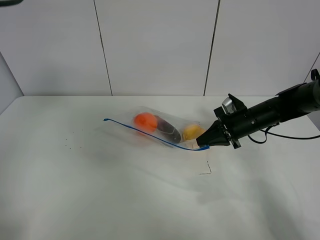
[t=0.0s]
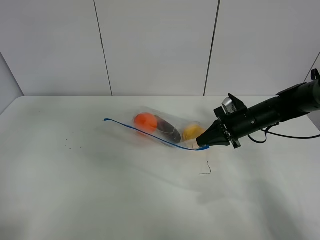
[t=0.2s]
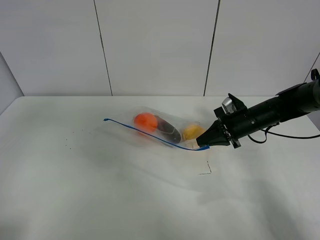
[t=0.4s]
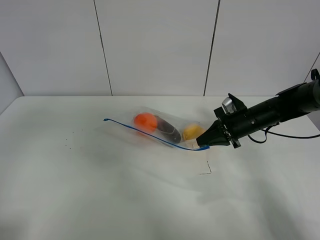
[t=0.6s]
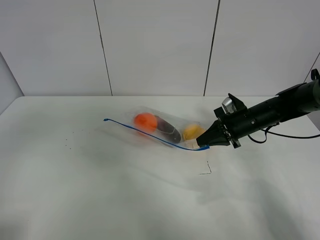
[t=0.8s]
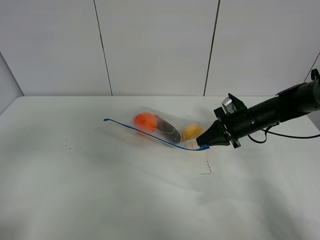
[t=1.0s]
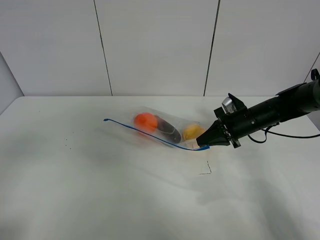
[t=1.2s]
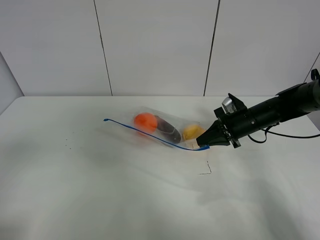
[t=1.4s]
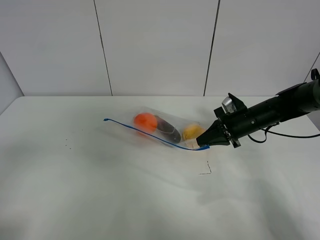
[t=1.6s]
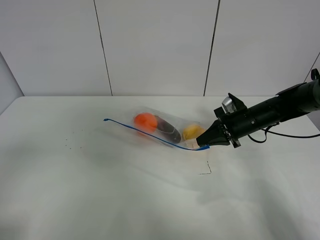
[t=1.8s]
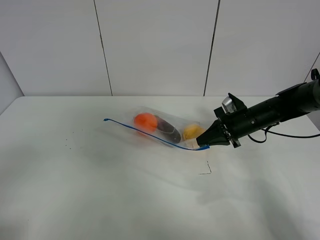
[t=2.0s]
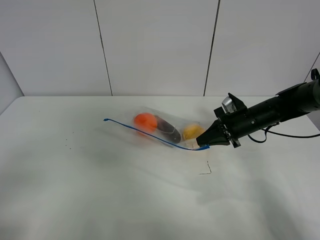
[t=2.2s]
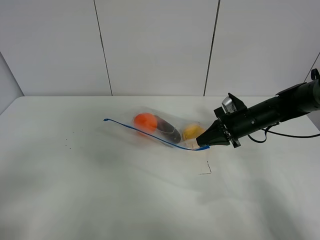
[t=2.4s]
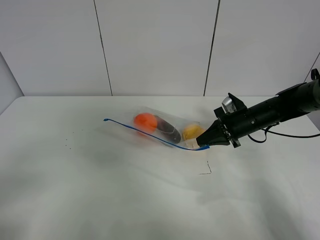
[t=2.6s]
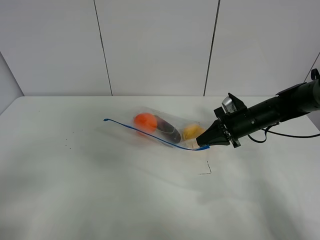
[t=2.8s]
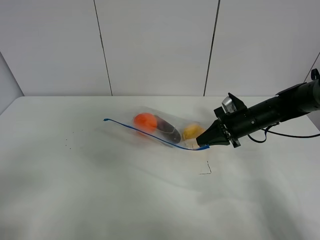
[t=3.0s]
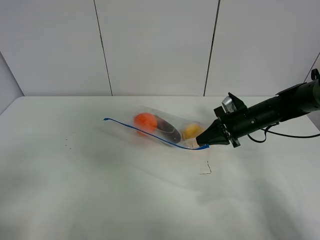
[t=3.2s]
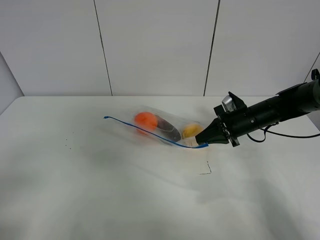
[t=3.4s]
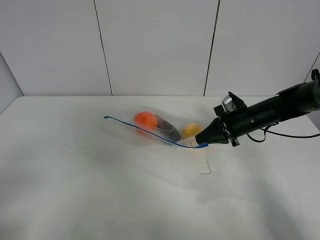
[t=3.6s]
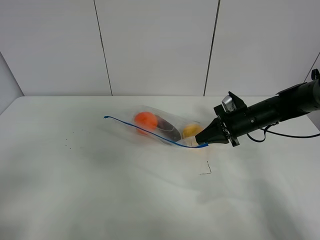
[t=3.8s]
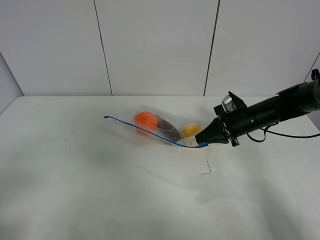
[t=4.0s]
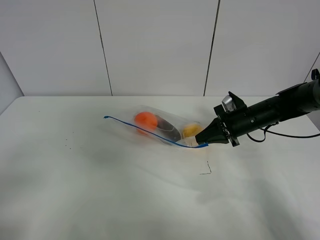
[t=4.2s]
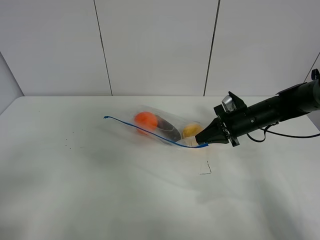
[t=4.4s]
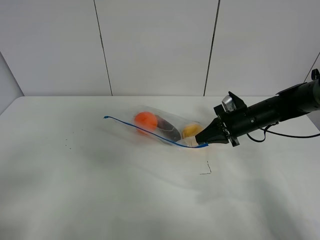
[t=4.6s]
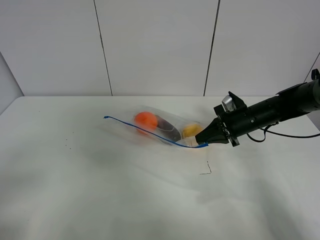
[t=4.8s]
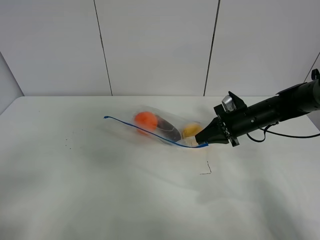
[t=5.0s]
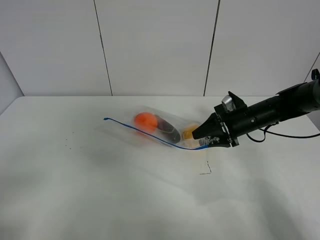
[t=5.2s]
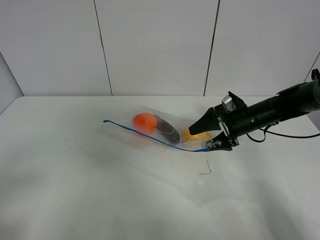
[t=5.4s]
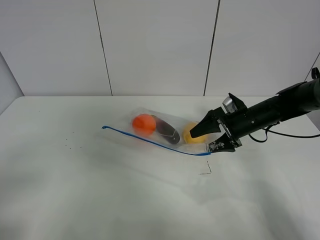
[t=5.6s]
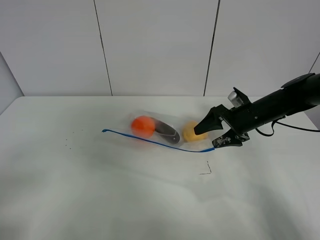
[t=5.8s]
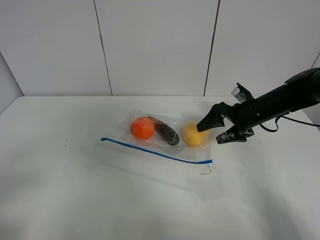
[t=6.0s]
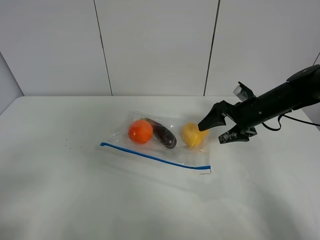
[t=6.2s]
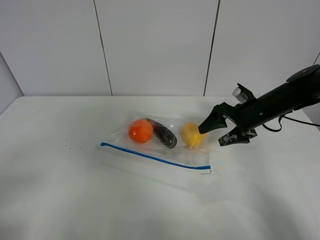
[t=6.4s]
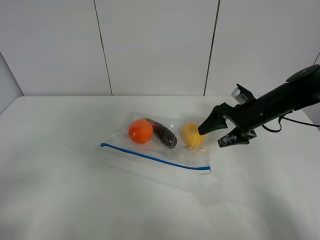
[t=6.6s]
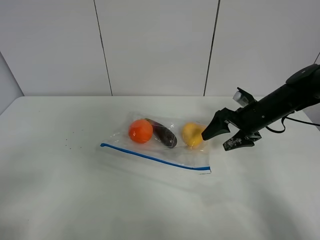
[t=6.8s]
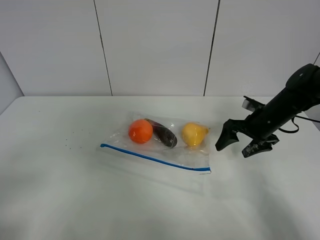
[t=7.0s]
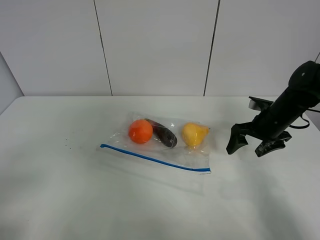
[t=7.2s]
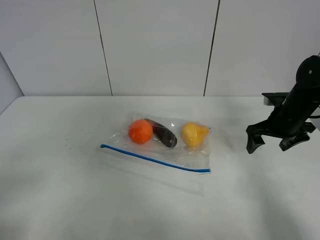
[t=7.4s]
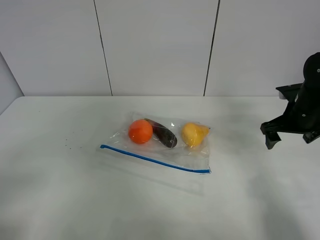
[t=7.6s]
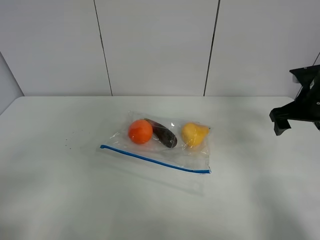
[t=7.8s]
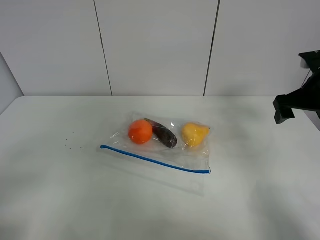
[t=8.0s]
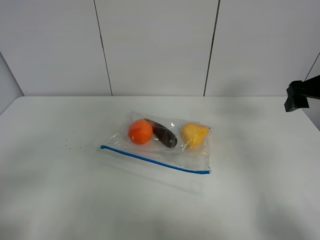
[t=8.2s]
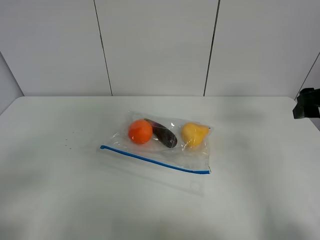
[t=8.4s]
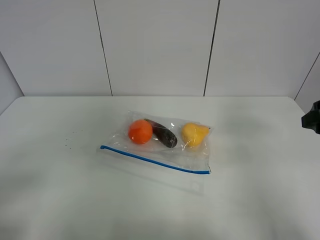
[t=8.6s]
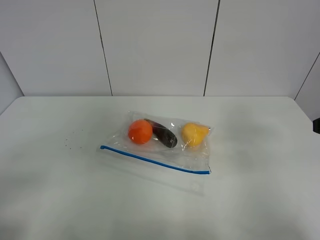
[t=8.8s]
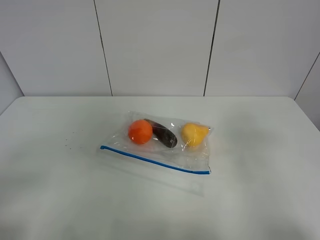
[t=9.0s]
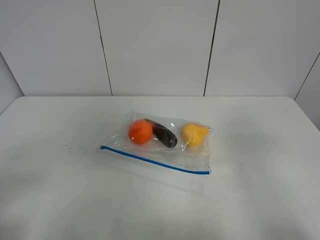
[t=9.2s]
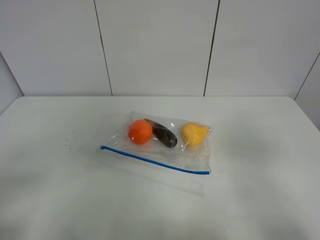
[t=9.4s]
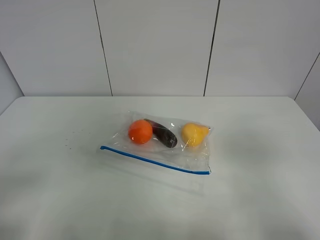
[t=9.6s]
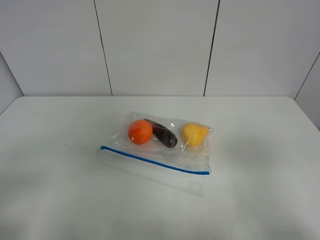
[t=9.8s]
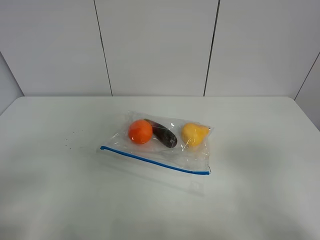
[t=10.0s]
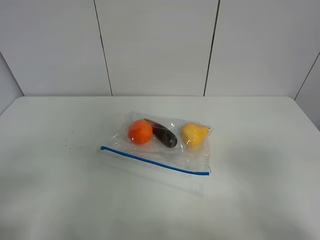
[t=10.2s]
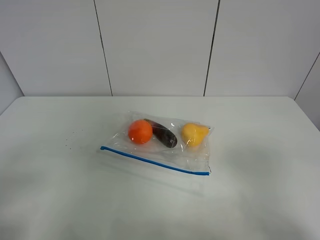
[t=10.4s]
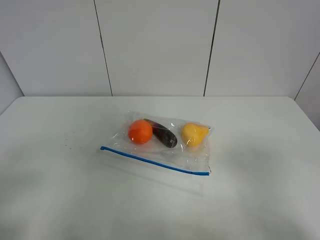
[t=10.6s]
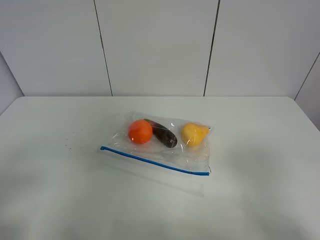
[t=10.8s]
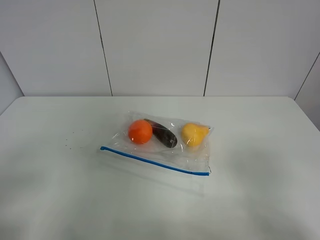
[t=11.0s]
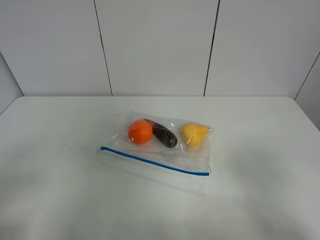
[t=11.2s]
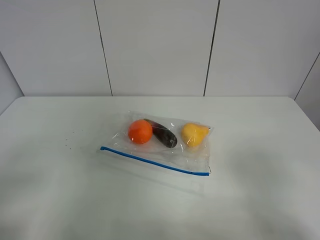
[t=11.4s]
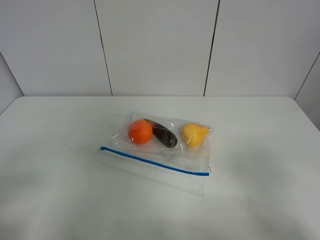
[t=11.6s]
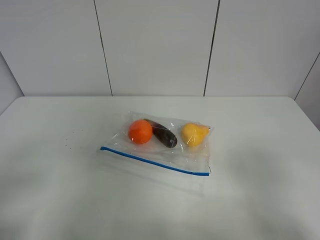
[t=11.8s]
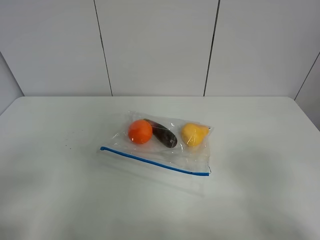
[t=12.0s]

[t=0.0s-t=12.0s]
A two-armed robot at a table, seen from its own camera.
t=0.0s to t=1.6s: The left gripper is displaced backward by roughly 25 cm.
t=3.0s to t=4.4s: The two grippers keep their place.
t=4.4s to t=6.0s: The right gripper opens its fingers.
t=6.0s to t=7.6s: The right gripper shifts approximately 10 cm to the right.
t=7.6s to t=9.0s: The right gripper is displaced backward and upward by roughly 25 cm.
t=9.0s to t=10.4s: The right gripper is displaced backward by roughly 10 cm.

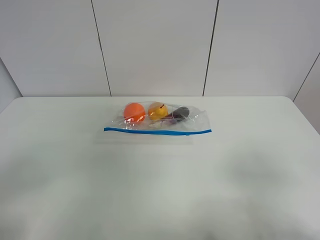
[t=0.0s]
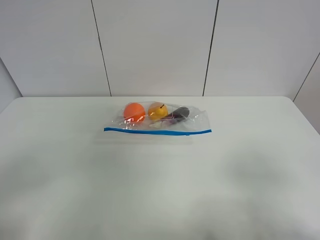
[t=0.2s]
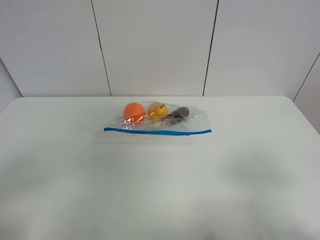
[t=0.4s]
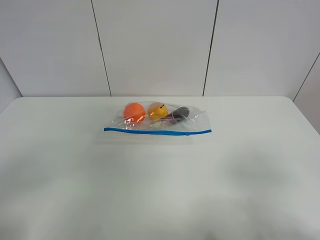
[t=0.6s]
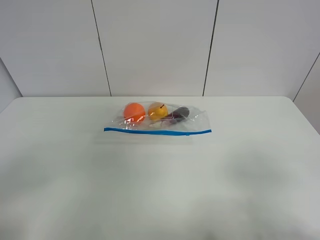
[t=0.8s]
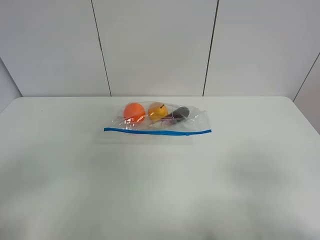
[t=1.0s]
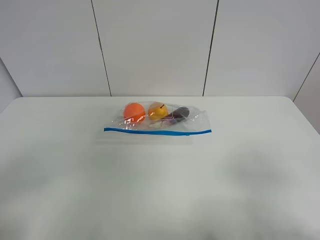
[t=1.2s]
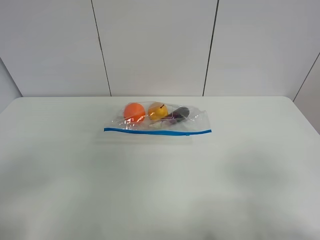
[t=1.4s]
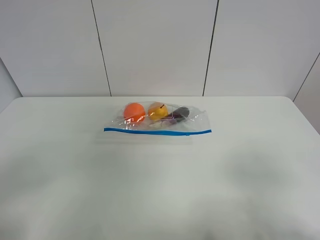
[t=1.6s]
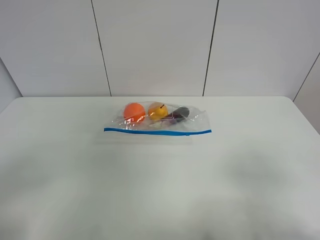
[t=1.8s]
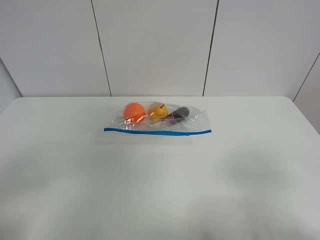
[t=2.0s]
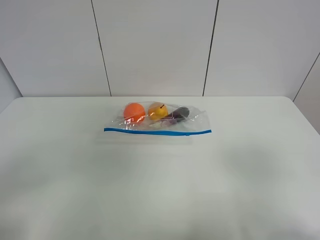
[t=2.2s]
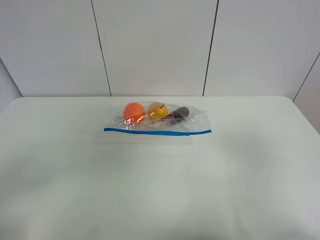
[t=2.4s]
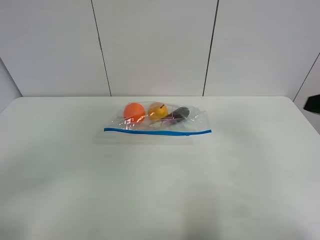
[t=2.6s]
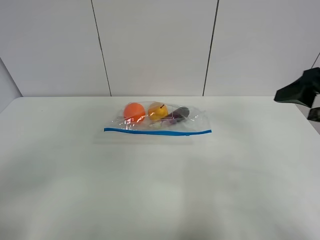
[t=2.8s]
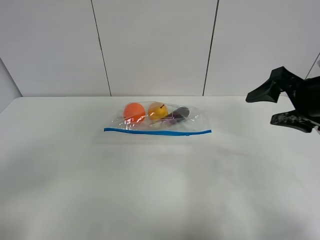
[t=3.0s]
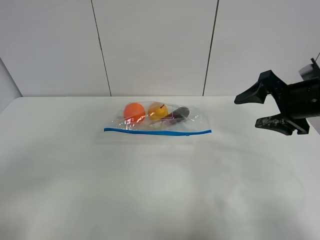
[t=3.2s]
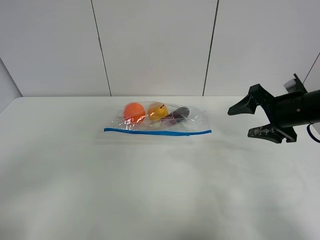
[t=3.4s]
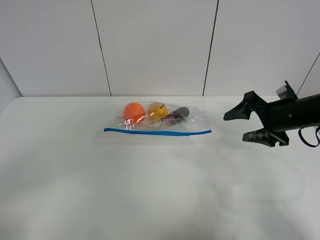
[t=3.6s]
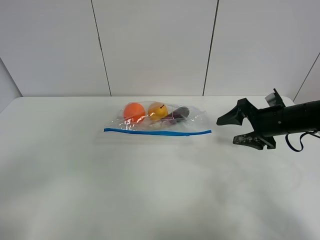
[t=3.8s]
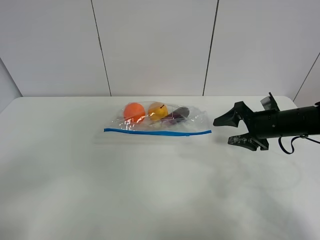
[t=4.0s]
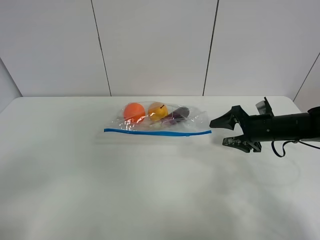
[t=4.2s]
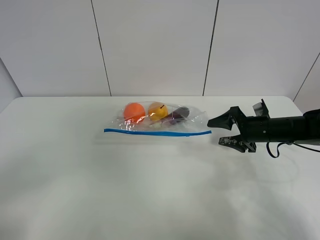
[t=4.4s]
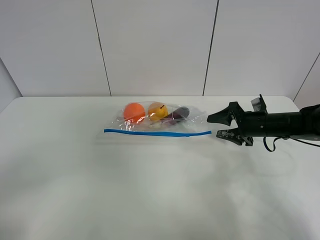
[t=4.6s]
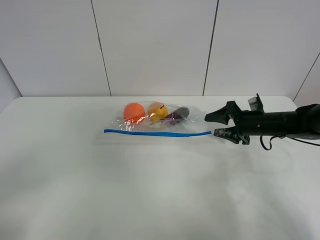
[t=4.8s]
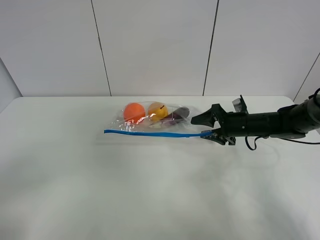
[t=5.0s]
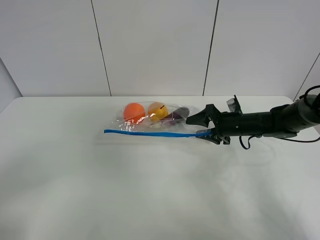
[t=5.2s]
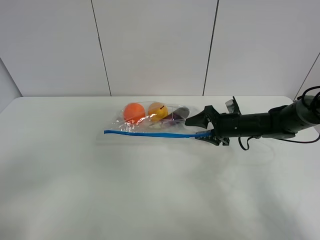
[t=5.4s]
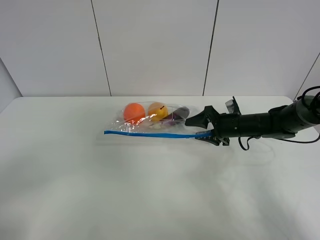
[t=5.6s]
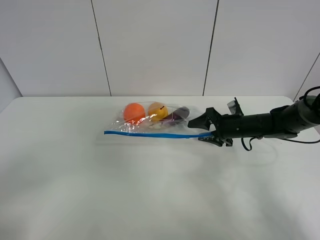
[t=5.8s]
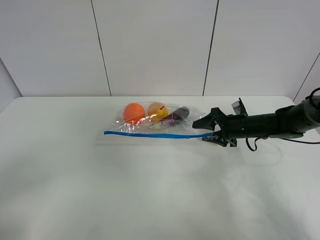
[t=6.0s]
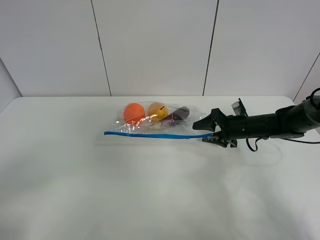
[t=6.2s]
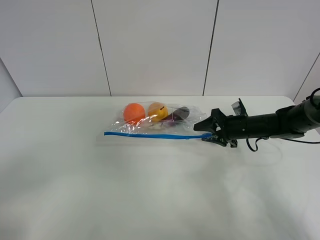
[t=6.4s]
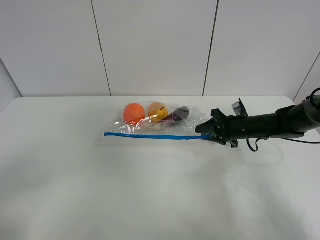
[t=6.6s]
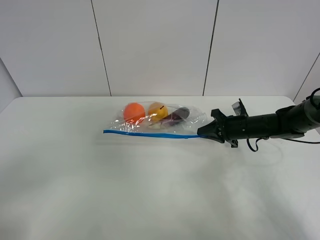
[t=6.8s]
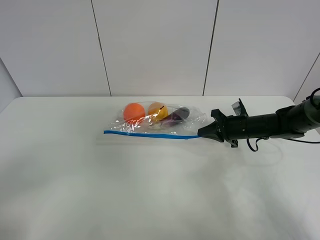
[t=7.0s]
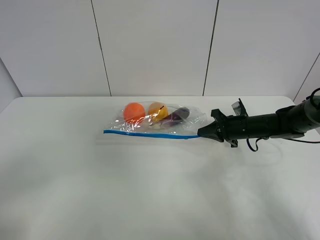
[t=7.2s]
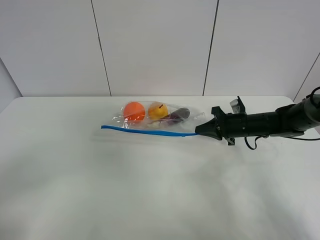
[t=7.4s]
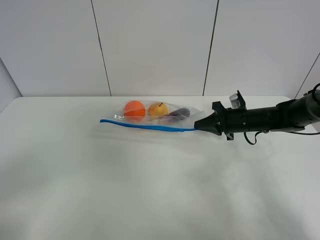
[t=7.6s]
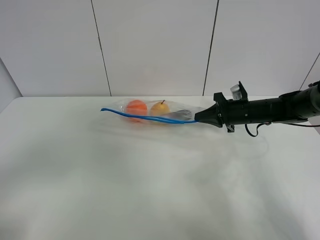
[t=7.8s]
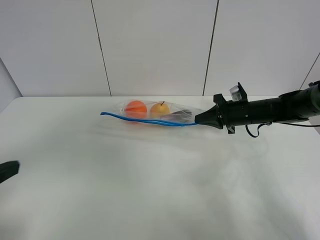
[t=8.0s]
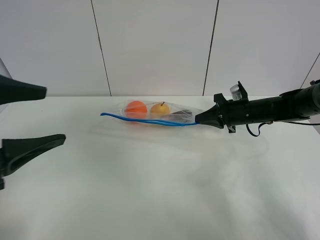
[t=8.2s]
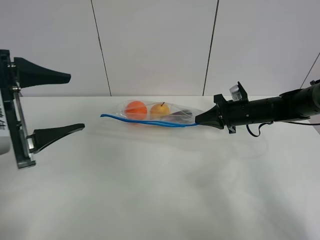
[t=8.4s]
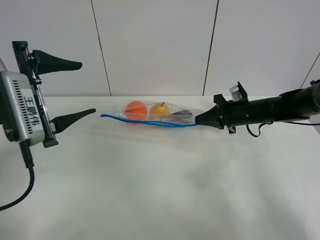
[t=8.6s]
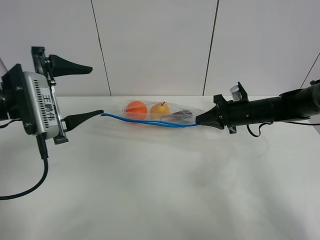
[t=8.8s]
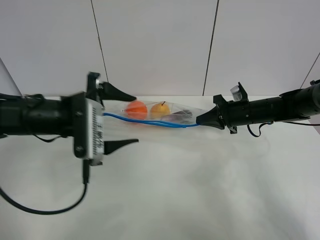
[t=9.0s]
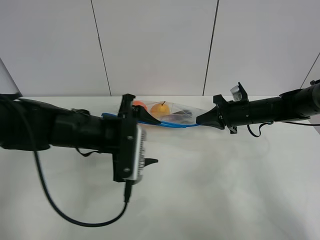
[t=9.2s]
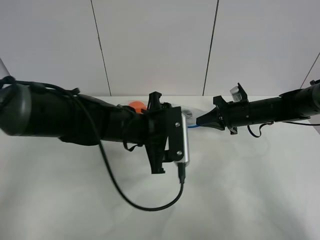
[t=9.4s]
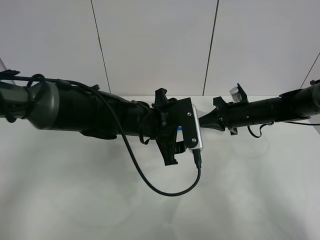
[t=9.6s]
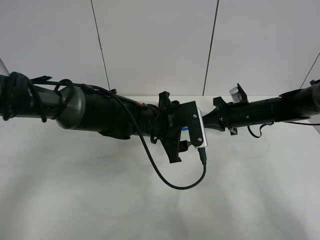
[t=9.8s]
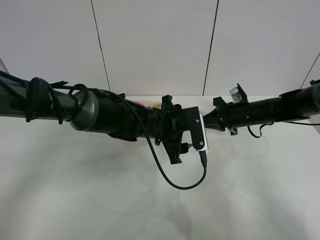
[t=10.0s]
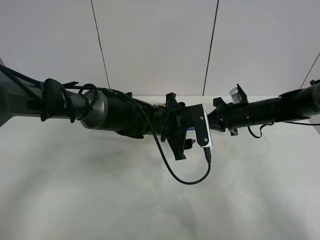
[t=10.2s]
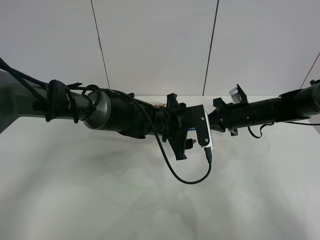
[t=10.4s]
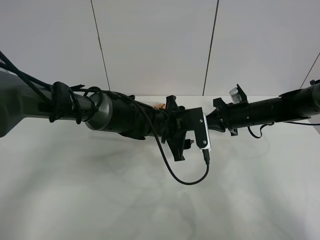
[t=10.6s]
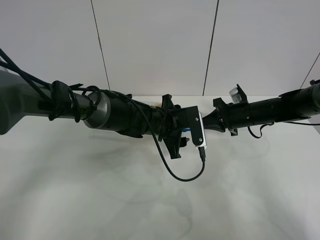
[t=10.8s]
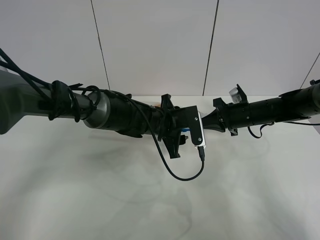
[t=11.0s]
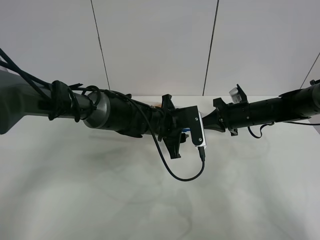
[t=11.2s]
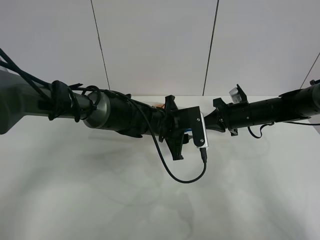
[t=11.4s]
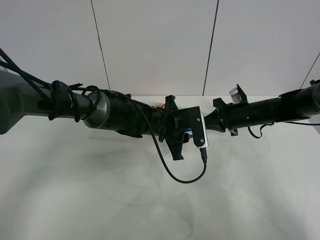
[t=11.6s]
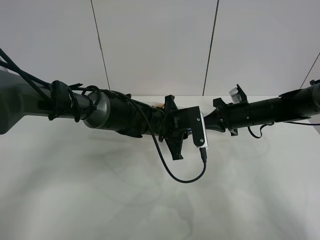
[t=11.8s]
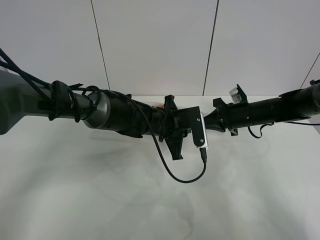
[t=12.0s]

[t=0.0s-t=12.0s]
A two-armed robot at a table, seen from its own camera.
Step, t=0.0s to t=6.8s: Grasp the fruit bag with right gripper.
Step, t=7.0s to t=7.8s: Lift the fruit bag with your right gripper.
t=0.0s to t=1.6s: Neither gripper changes place.
t=1.6s to t=3.0s: The right gripper goes about 25 cm forward.
t=3.0s to t=4.4s: The right gripper shifts about 20 cm downward and forward.
t=4.4s to t=6.0s: The right gripper ends up about 5 cm from where it was.
t=6.0s to t=7.6s: The right gripper closes its fingers.
t=7.6s to t=9.0s: The left gripper is displaced forward and to the right by some 30 cm.
t=9.0s to t=10.4s: The left gripper moves to the right, forward and downward, roughly 20 cm.
t=10.4s to t=12.0s: The left gripper closes.
